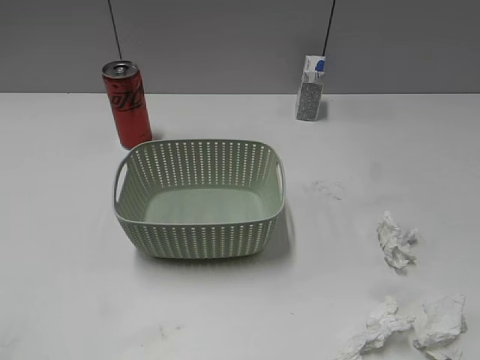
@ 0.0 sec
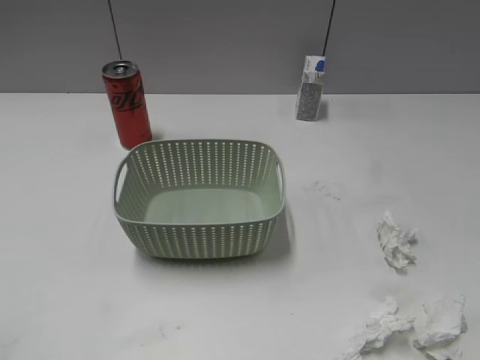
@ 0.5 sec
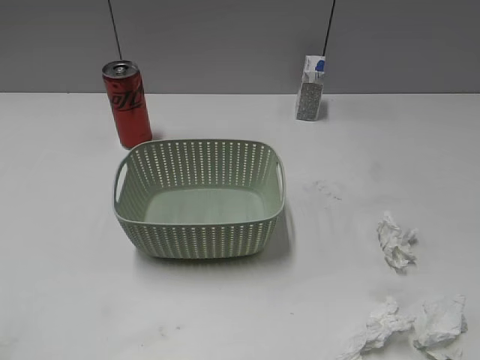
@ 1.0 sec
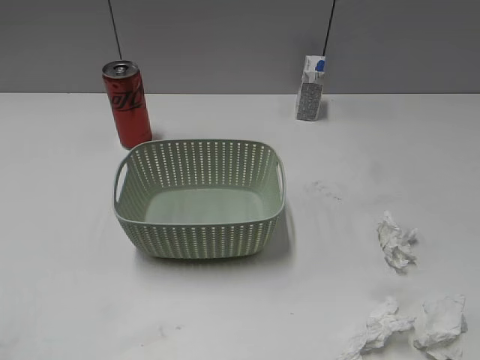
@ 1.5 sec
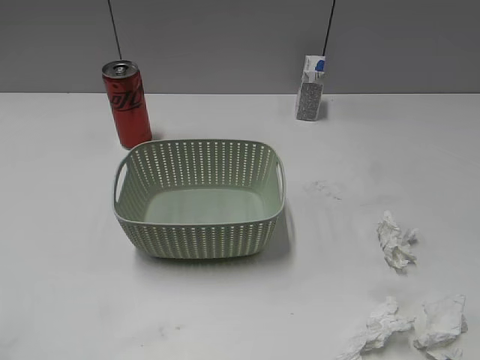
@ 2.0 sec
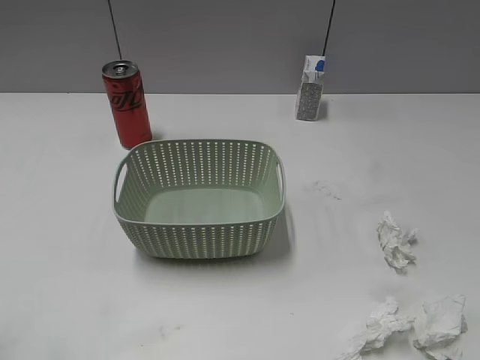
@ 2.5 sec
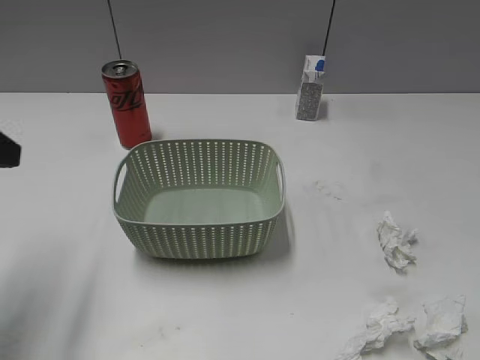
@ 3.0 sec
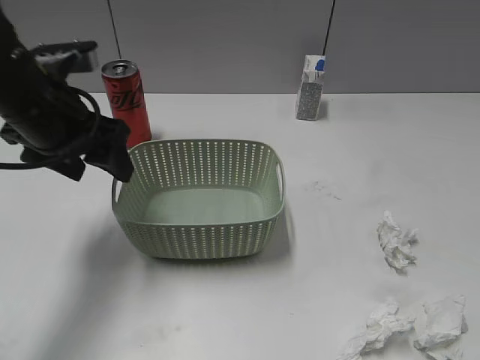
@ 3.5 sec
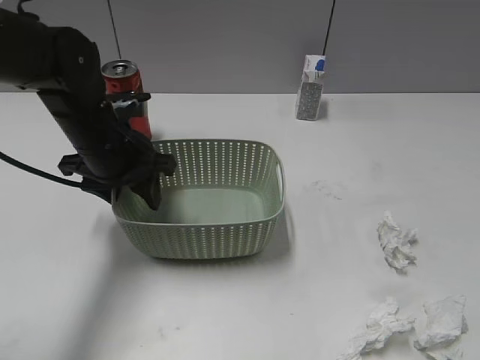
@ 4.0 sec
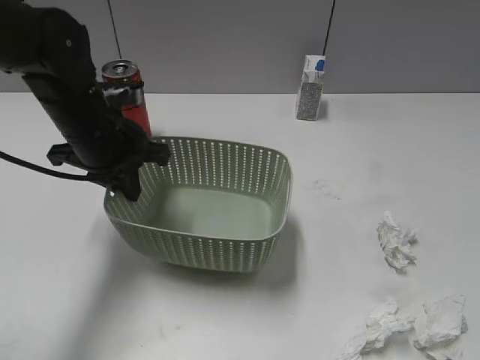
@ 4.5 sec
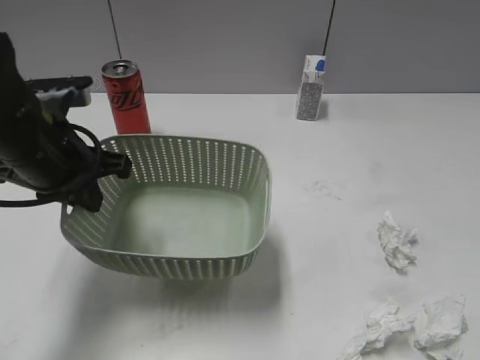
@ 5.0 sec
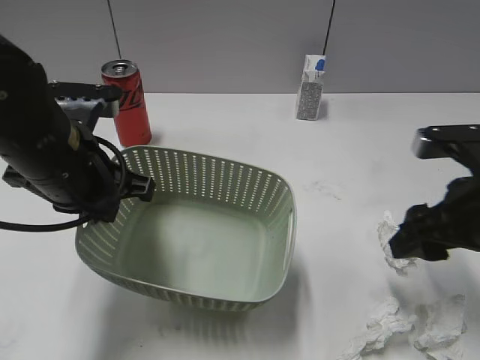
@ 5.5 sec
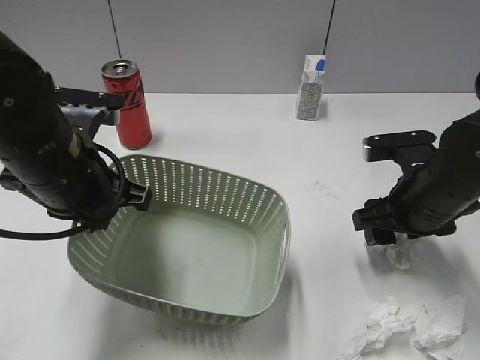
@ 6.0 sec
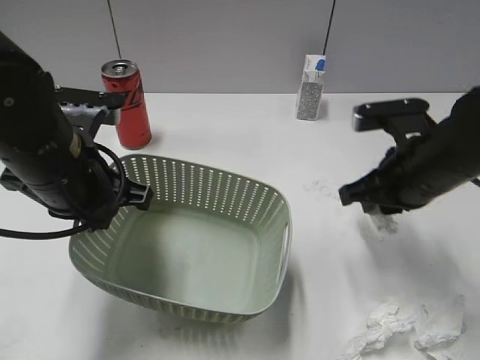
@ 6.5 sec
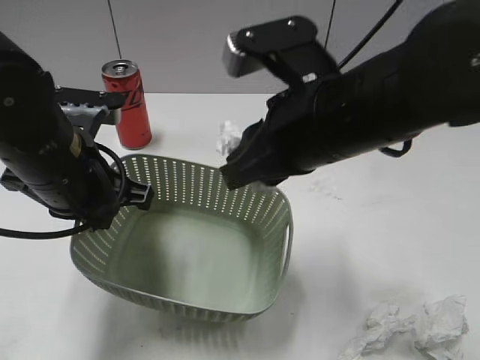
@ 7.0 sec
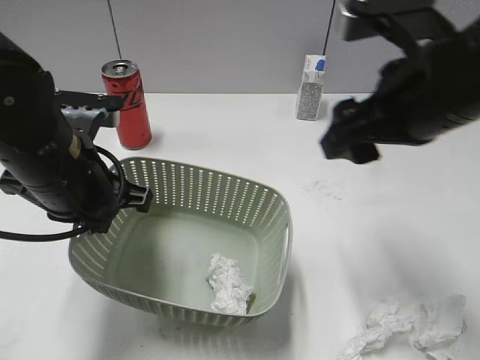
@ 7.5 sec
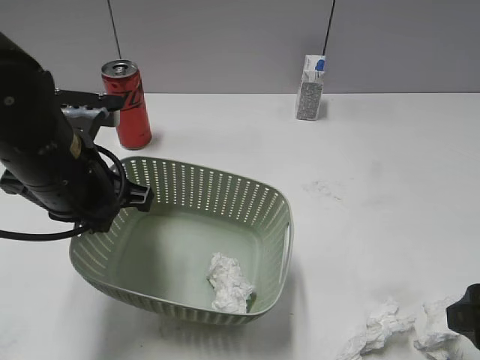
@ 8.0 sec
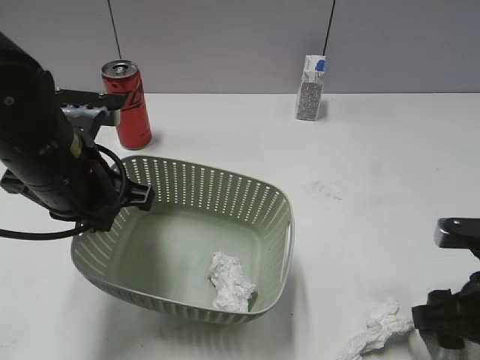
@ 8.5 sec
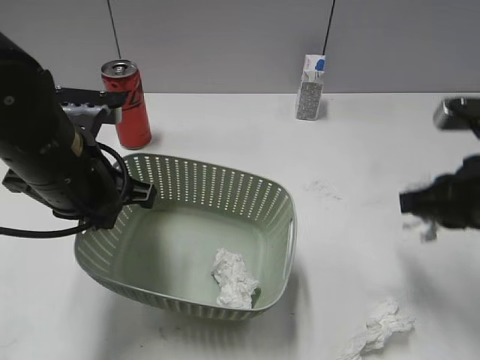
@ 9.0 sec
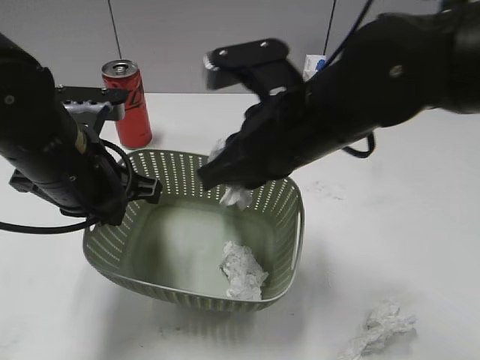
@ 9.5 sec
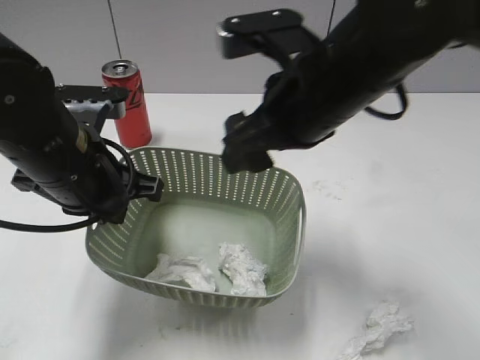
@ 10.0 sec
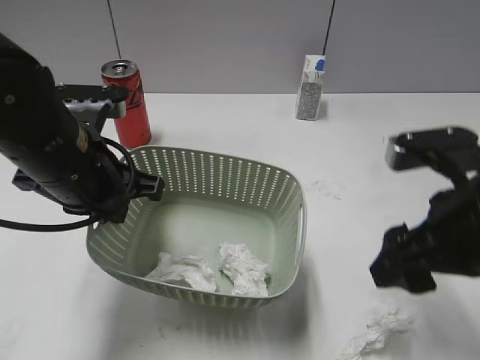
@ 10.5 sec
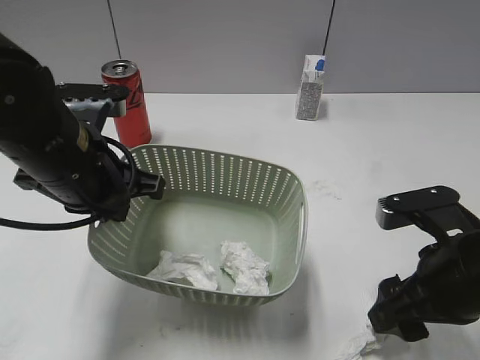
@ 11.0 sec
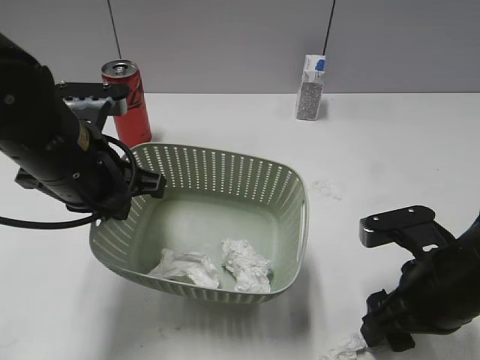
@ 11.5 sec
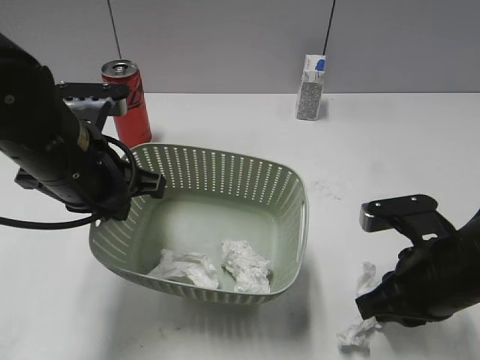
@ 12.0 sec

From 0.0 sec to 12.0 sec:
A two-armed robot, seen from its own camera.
Step, from 3.0 sec to 4.0 sec: Grasp the basket with left gripper.
Step, from 4.5 sec to 5.0 sec: Lift the basket with left gripper.
Step, from 5.5 sec to 6.0 sec: Grasp the waste paper with right gripper.
Step, from 6.5 sec to 7.5 sec: Place the waste paper in the basket with right gripper.
Step, from 8.0 sec to 8.5 sec: Grasp the waste paper with right gripper.
Step, from 9.0 sec to 10.0 sec: Place the waste paper in the basket with right gripper.
Step, from 10.5 sec to 11.5 sec: Grasp the waste paper with right gripper.
From 2.0 sec to 4.0 sec: The left gripper moves forward and to the right, some 35 cm.
From 4.0 sec to 6.0 sec: The left gripper travels backward by roughly 10 cm, and closes up; the right gripper shifts some 30 cm forward and downward.
From 6.0 sec to 8.0 sec: The right gripper shifts roughly 15 cm backward, goes to the left and returns, about 15 cm each way, and closes and opens again.
From 8.0 sec to 10.0 sec: The right gripper moves to the left, forward and upward, some 25 cm, and closes, then reopens.
From 10.0 sec to 12.0 sec: The right gripper travels downward, to the right and backward by roughly 20 cm, and closes its fingers.

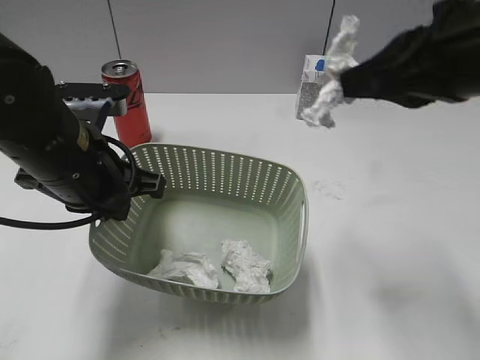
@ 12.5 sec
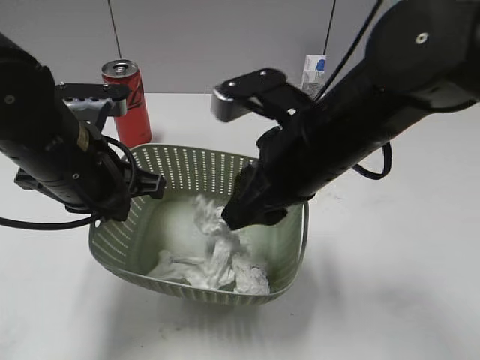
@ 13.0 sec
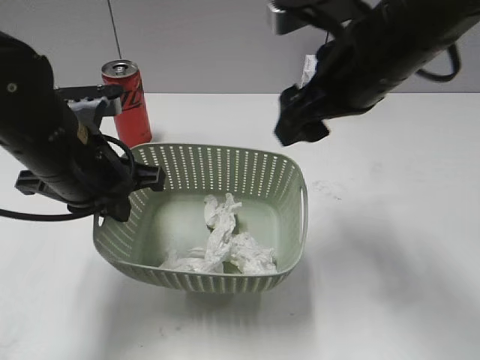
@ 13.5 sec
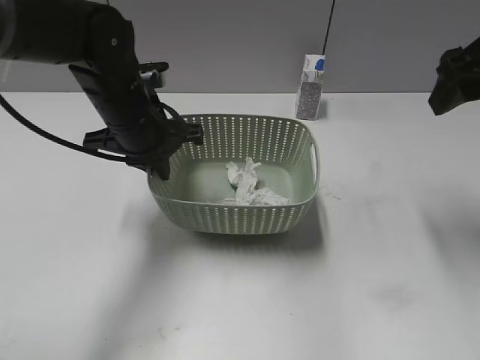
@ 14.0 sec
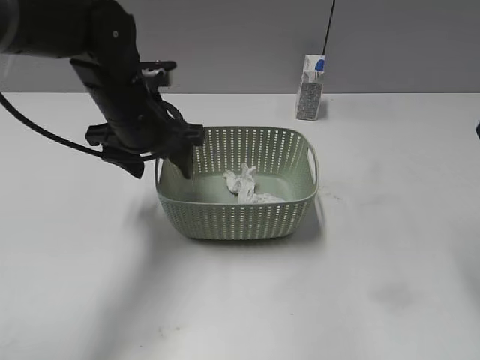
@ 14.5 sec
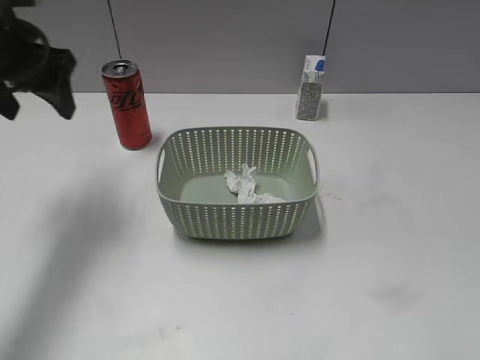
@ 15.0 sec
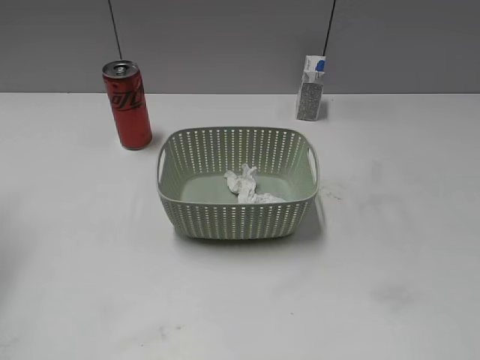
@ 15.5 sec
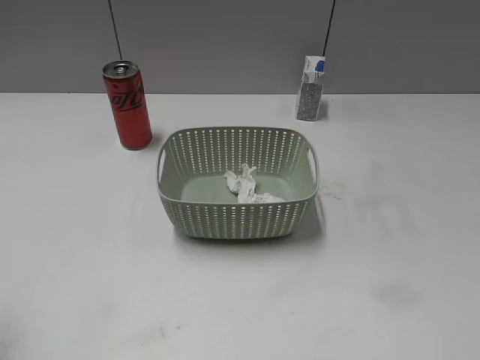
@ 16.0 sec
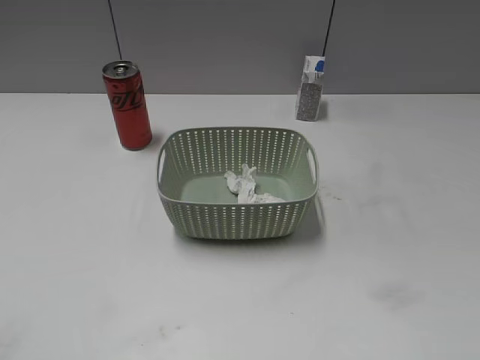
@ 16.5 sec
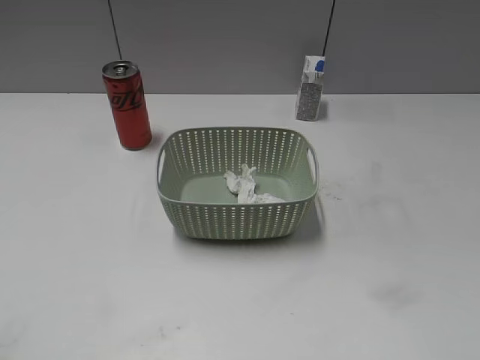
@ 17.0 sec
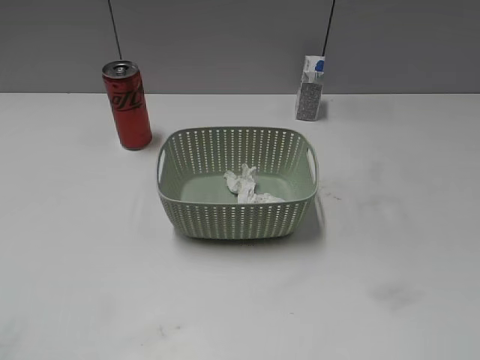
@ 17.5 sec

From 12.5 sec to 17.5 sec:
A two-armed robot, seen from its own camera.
Step, from 13.5 sec to 14.5 sec: Place the basket on the table with left gripper.
From 12.5 sec to 15.0 sec: The right gripper travels backward, to the right and downward by about 15 cm, and opens. The left gripper travels forward, to the left and upward by about 15 cm, and opens.
From 15.0 sec to 17.5 sec: The left gripper moves backward, roughly 35 cm.

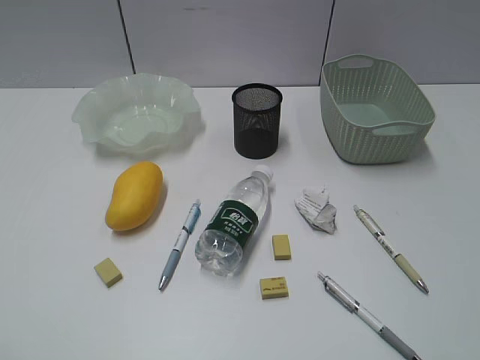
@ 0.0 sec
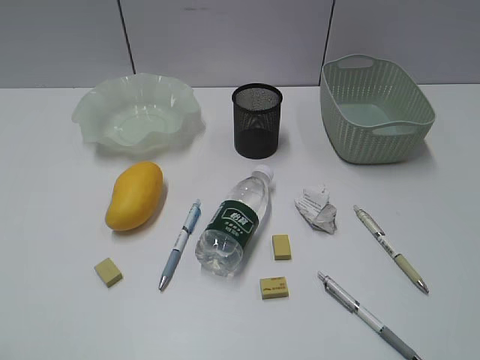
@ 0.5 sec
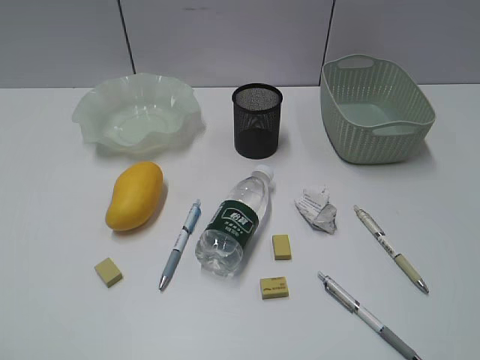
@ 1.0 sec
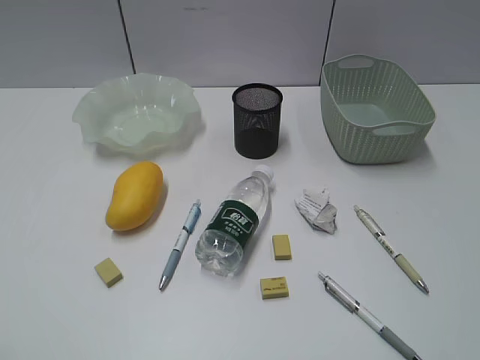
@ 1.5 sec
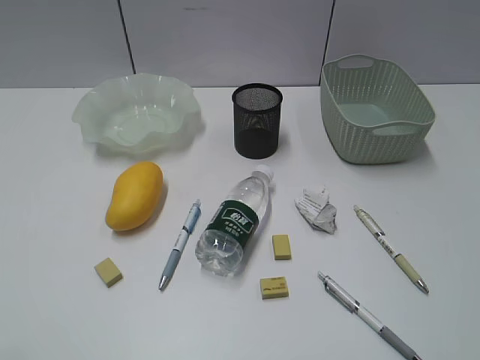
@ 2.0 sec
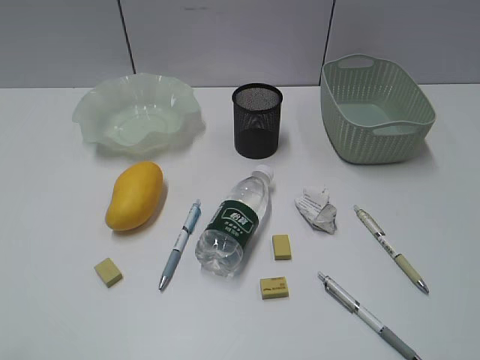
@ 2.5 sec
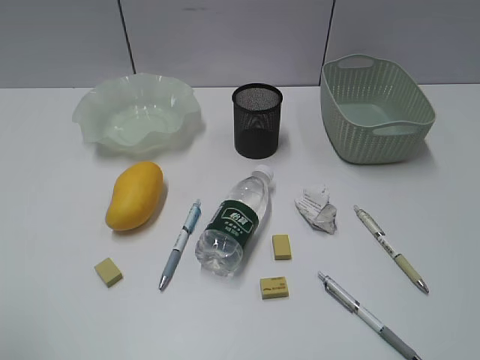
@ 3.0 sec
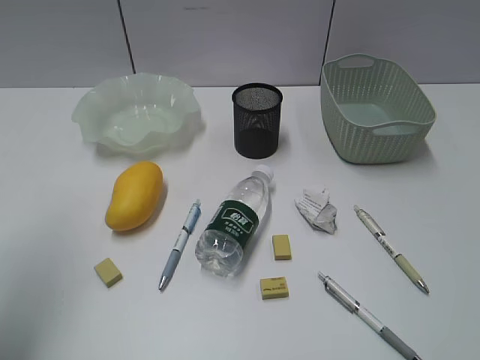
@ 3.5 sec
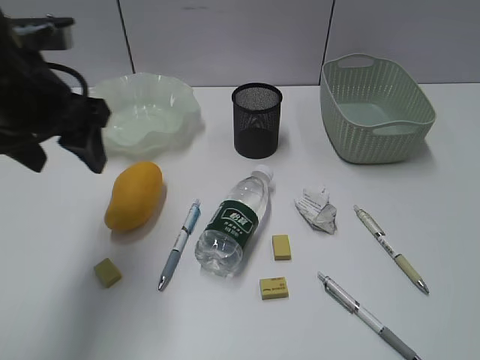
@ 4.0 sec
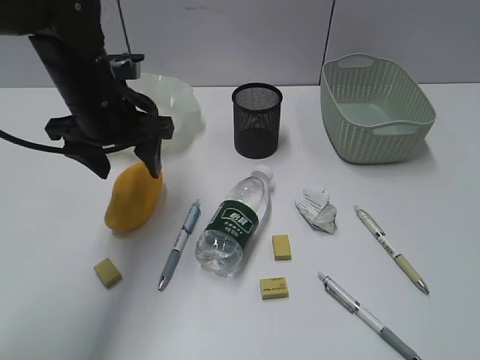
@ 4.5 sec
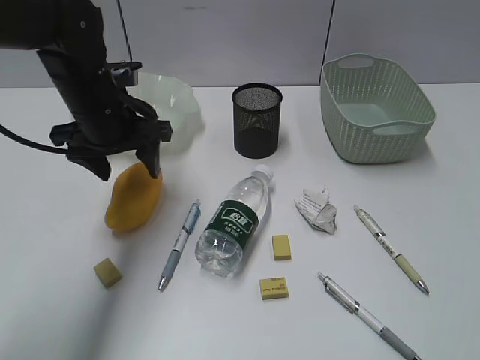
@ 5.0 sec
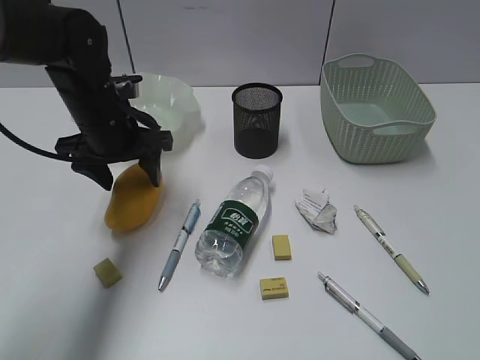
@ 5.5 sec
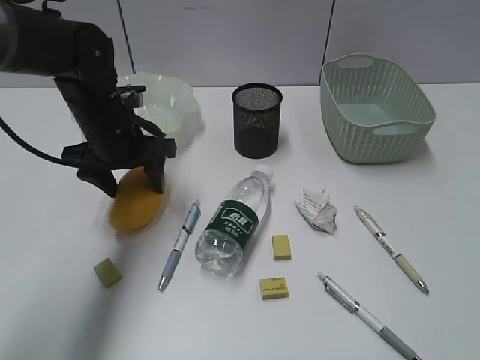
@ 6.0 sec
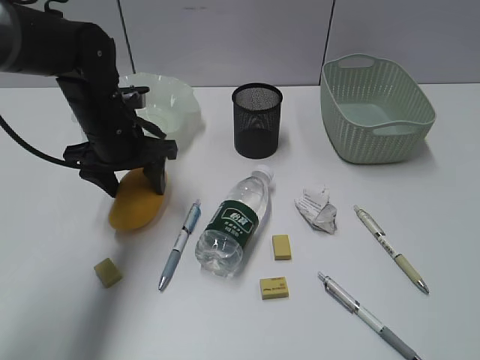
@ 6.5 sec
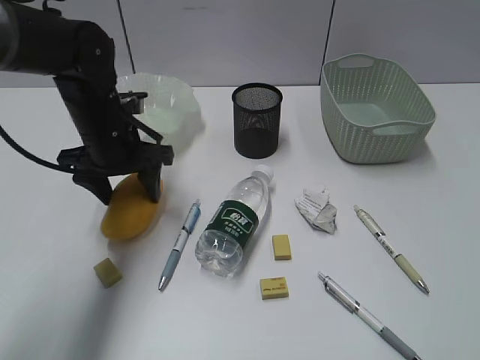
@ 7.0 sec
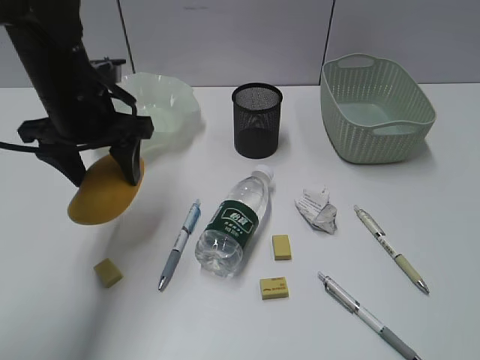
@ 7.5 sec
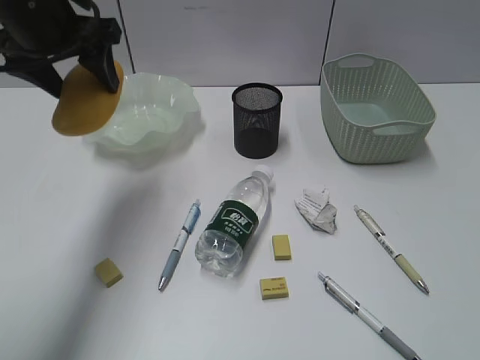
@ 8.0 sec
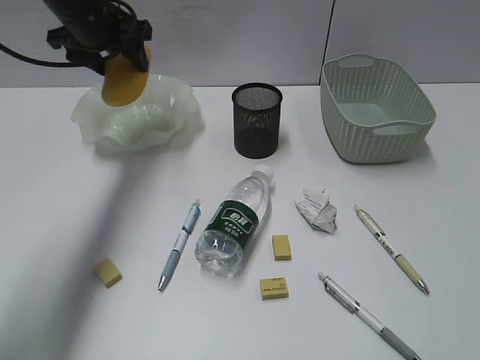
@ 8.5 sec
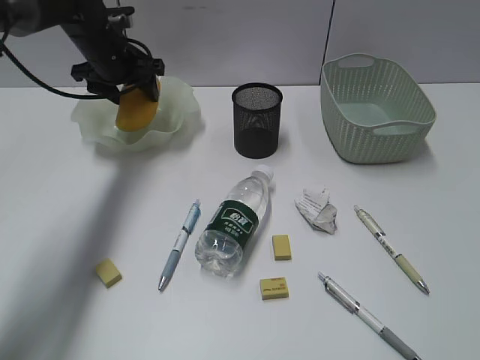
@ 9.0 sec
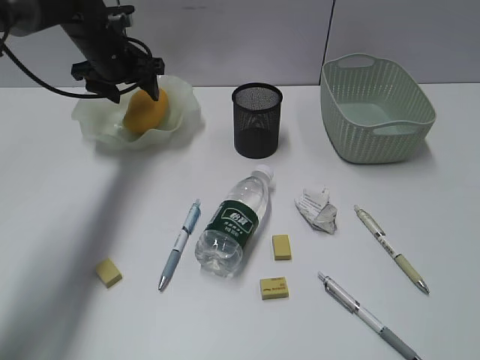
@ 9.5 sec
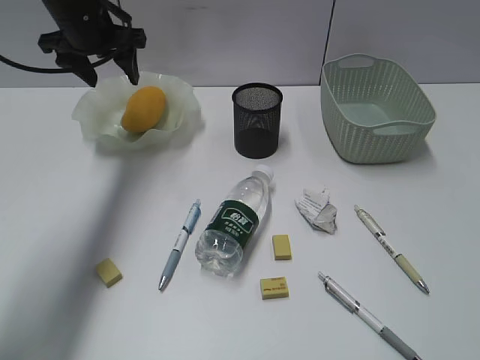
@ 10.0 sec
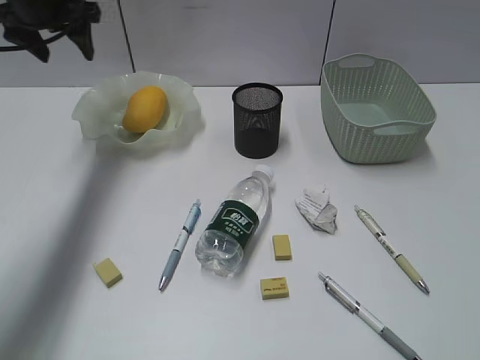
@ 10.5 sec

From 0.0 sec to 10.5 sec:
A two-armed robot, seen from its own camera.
Step, from 4.0 sec to 6.5 sec: Grasp the mango with left gripper.
Step, from 7.0 sec to 9.5 sec: Place the mango in the plate with left gripper.
From 2.0 sec to 4.0 sec: The left gripper is displaced forward and to the right by some 30 cm.
From 4.0 sec to 6.5 sec: The left gripper is displaced downward and forward by roughly 15 cm.
From 6.5 sec to 8.5 sec: The left gripper goes roughly 15 cm upward and forward.
From 8.5 sec to 10.5 sec: The left gripper shifts some 5 cm to the left, and reaches about 5 cm downward, then returns.
